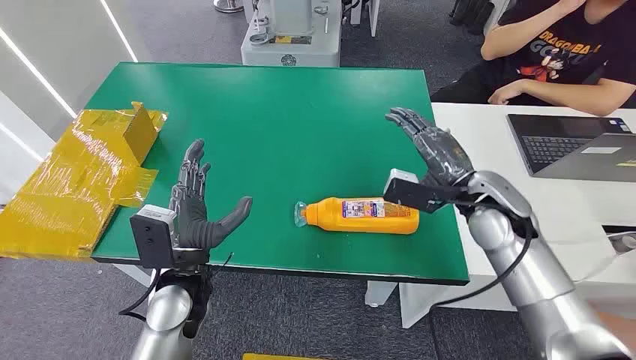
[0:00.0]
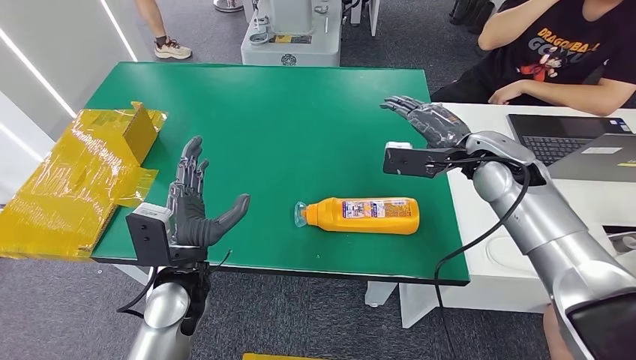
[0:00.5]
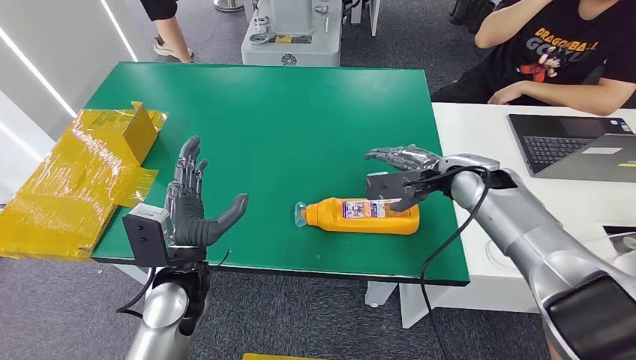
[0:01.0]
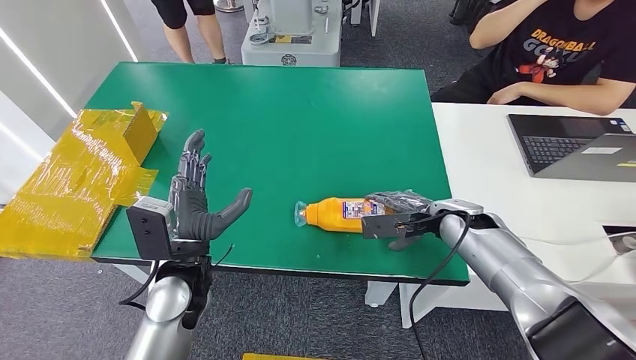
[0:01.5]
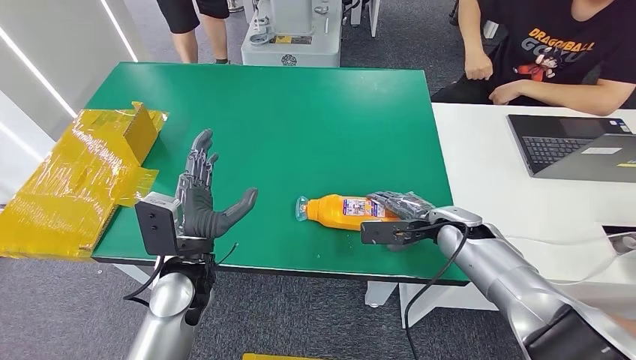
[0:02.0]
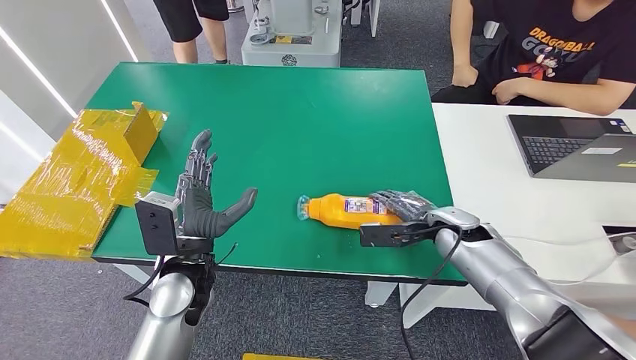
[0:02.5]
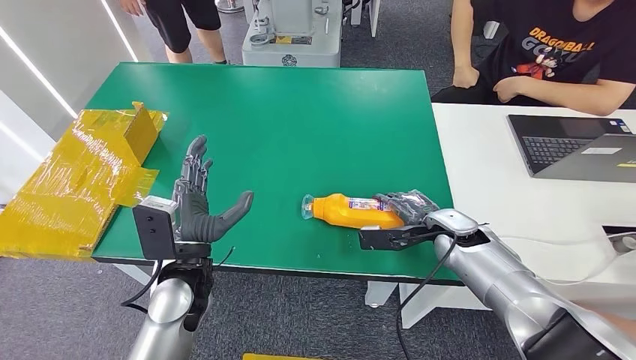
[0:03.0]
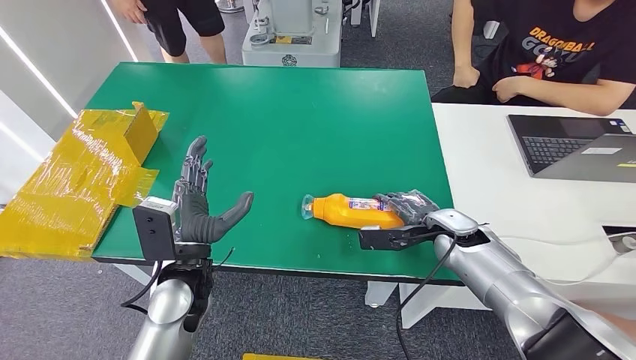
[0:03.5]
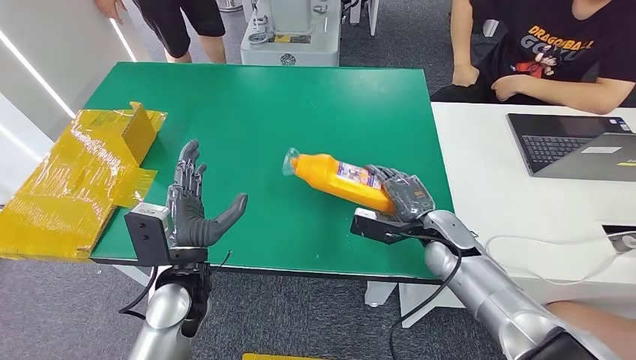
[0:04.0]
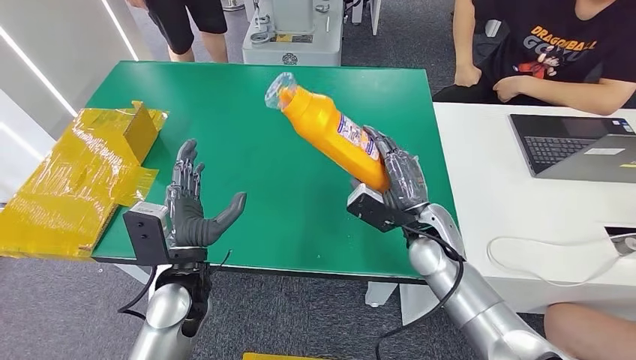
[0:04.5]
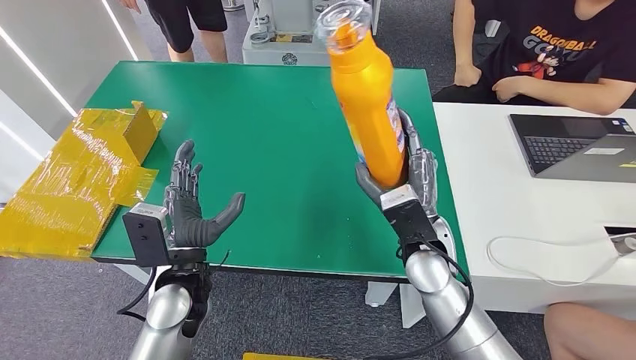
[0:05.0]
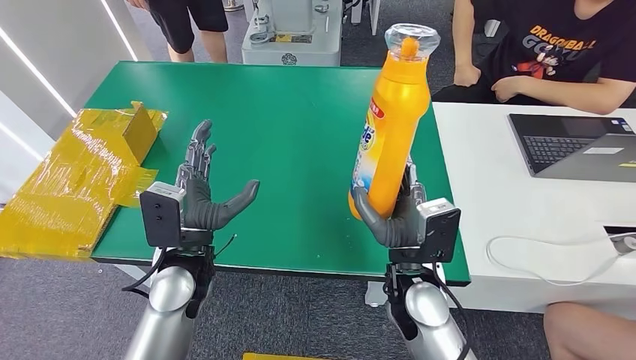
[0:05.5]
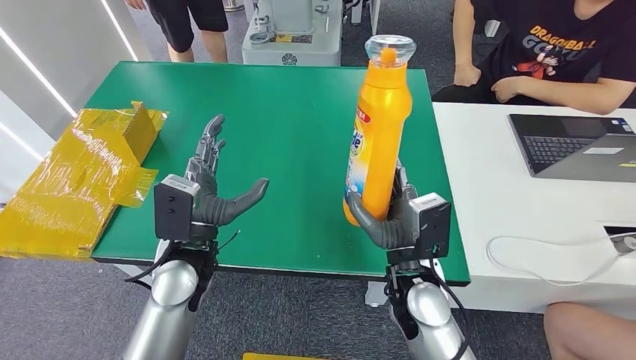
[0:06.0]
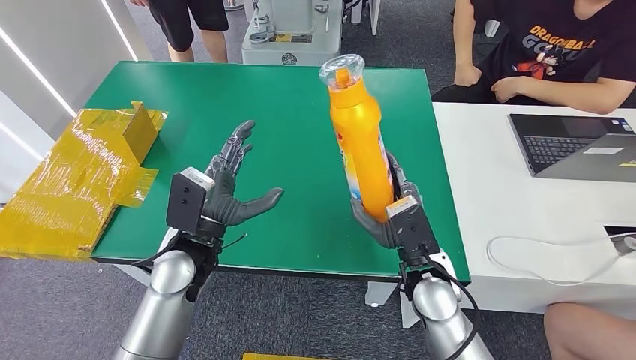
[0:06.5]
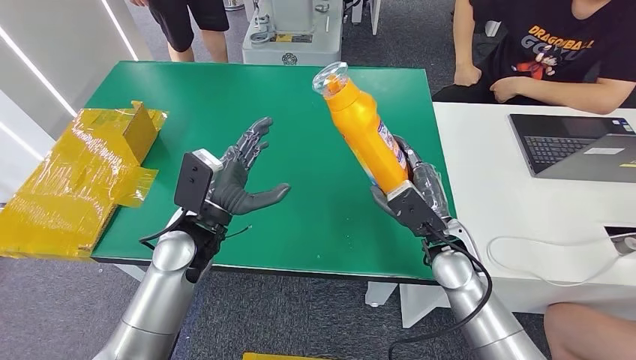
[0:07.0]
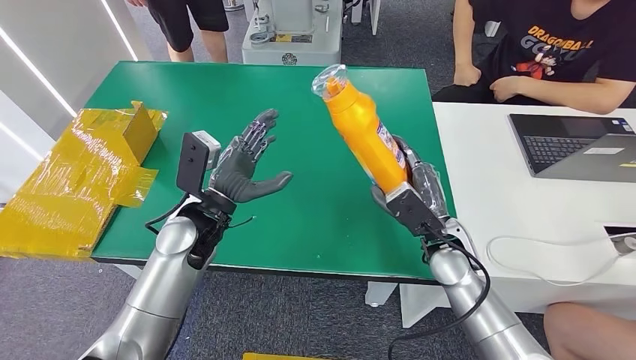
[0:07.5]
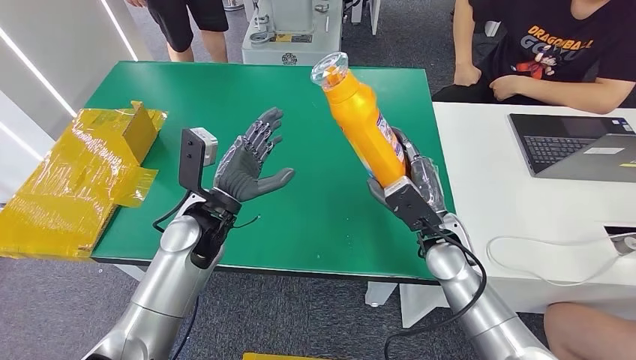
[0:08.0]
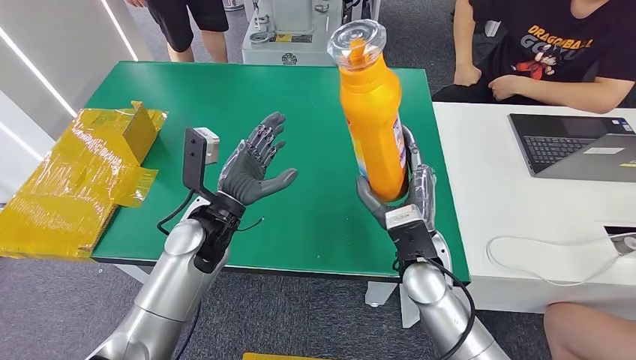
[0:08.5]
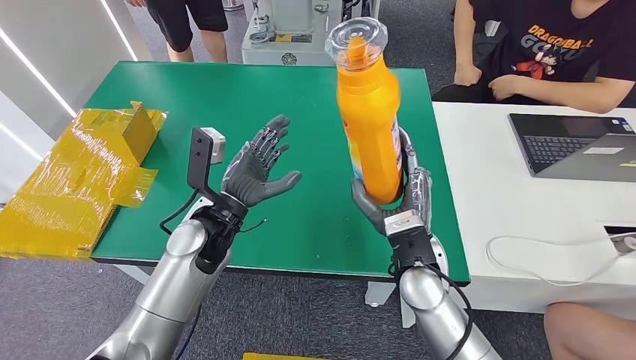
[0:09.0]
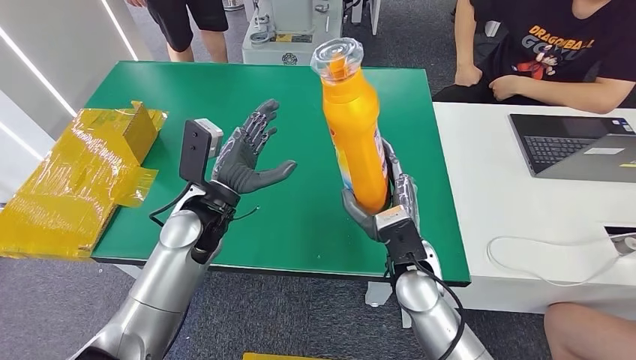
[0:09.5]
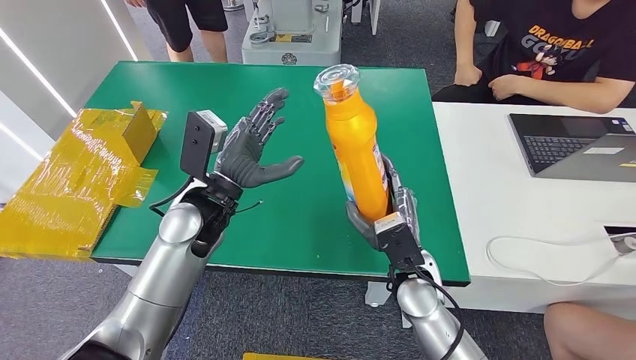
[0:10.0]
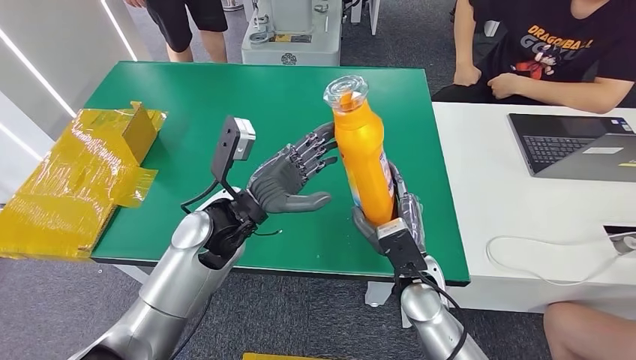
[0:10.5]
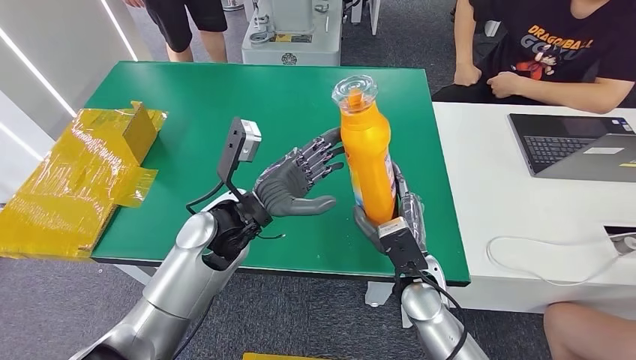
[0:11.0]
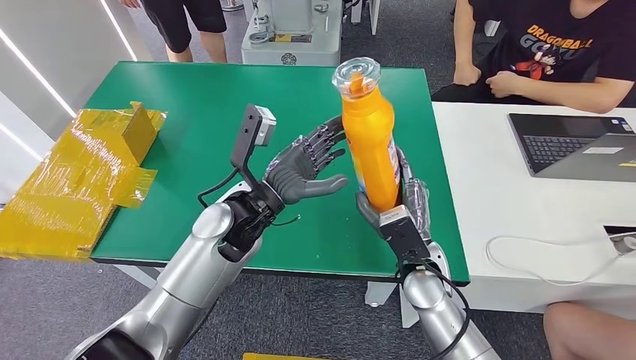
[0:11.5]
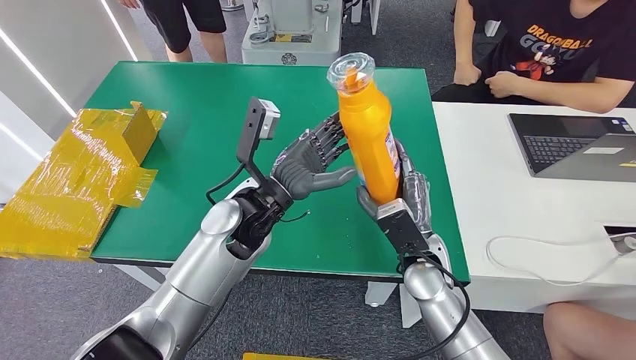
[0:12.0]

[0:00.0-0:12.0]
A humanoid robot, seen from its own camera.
Step, 0:00.0 to 0:04.0: Pick up the bottle from the table.
0:06.0 to 0:08.0: The left hand goes roughly 5 cm forward. The right hand shifts about 10 cm to the right and forward.
0:08.0 to 0:10.0: The right hand travels backward and to the left by approximately 10 cm.
0:10.0 to 0:12.0: The left hand moves to the right, approximately 5 cm.

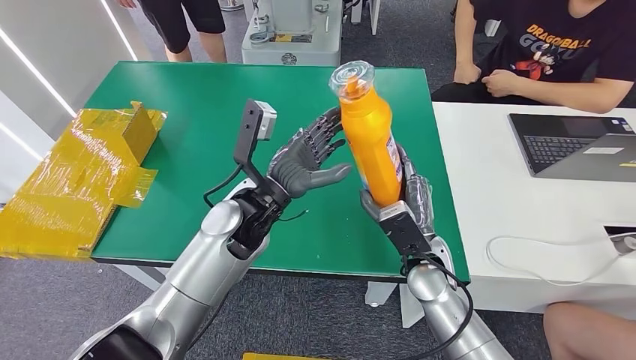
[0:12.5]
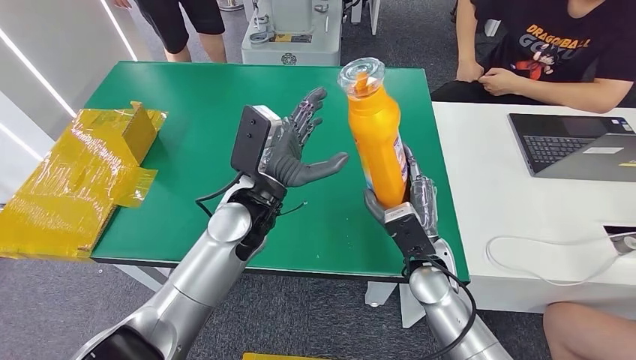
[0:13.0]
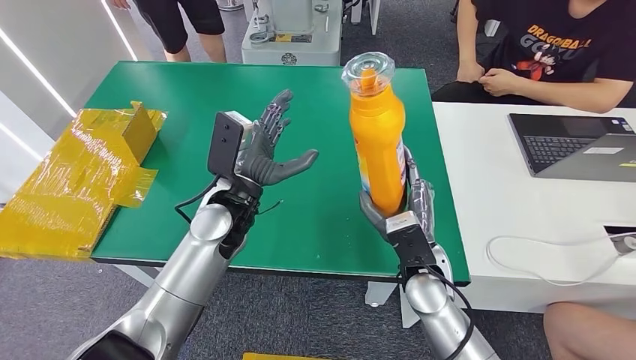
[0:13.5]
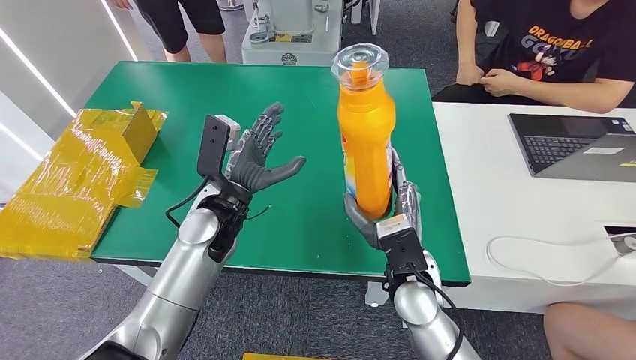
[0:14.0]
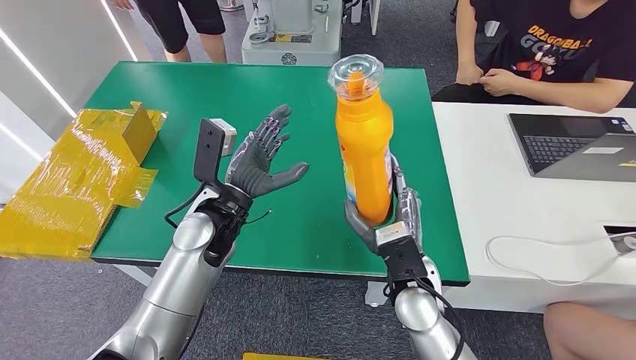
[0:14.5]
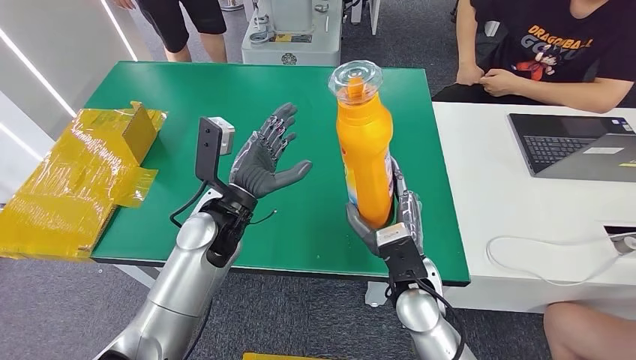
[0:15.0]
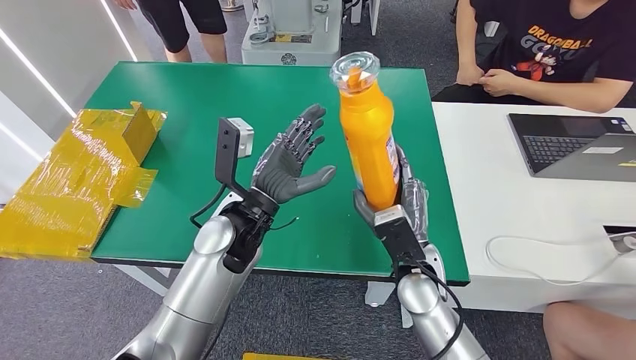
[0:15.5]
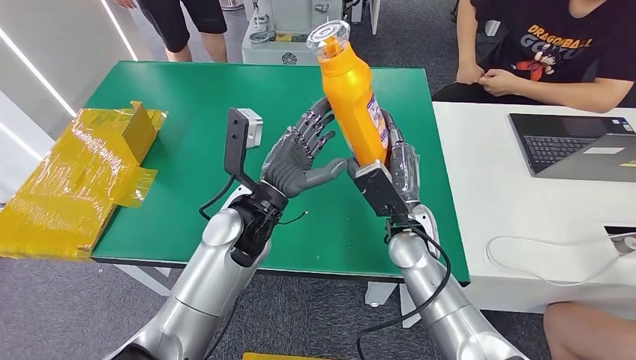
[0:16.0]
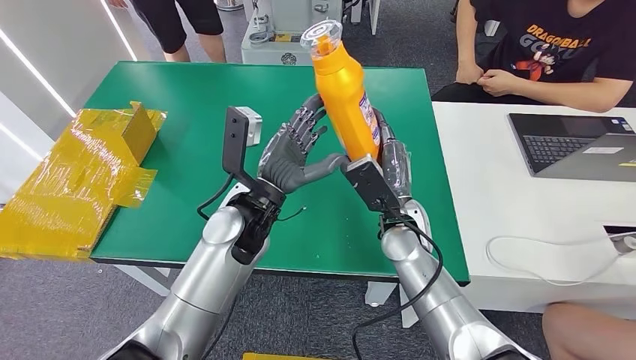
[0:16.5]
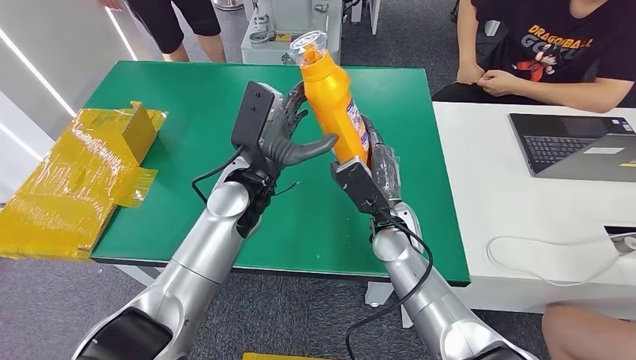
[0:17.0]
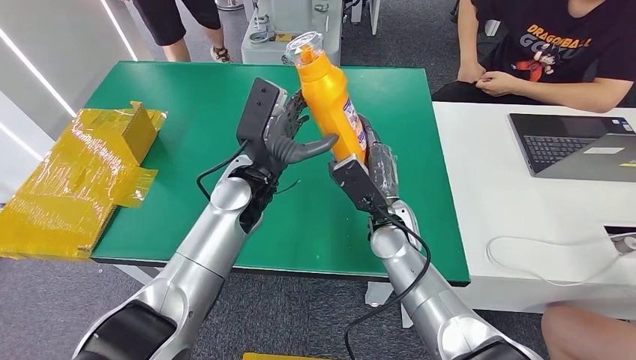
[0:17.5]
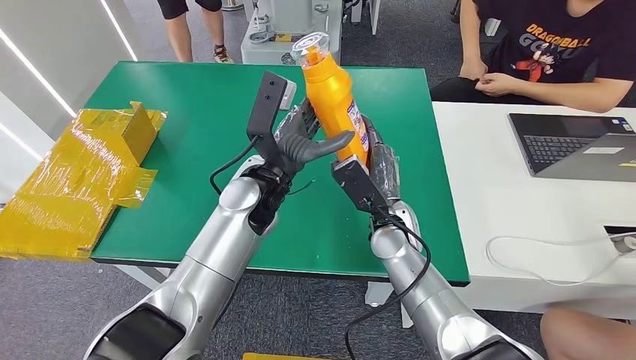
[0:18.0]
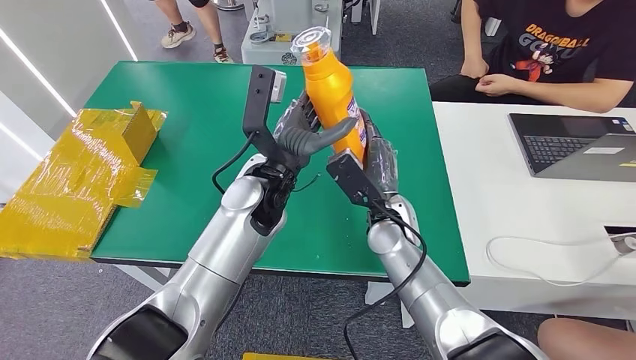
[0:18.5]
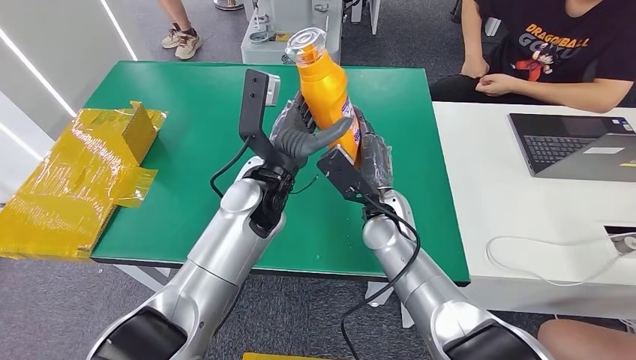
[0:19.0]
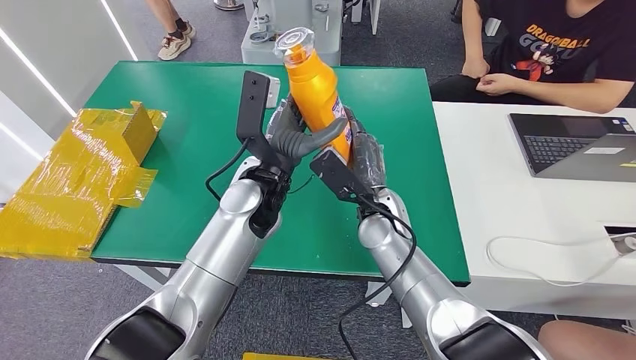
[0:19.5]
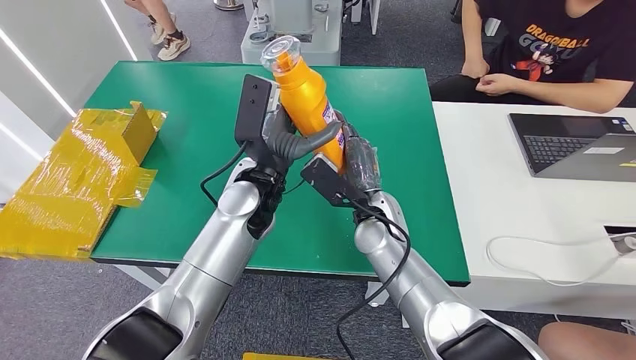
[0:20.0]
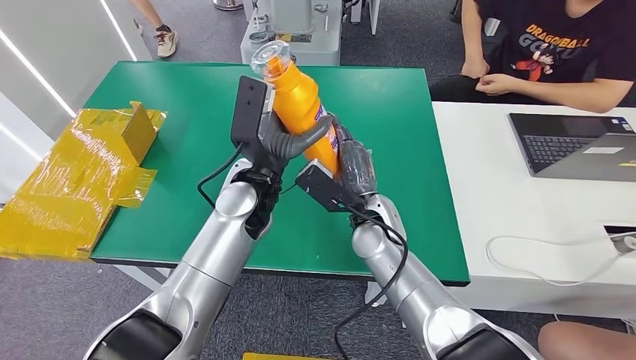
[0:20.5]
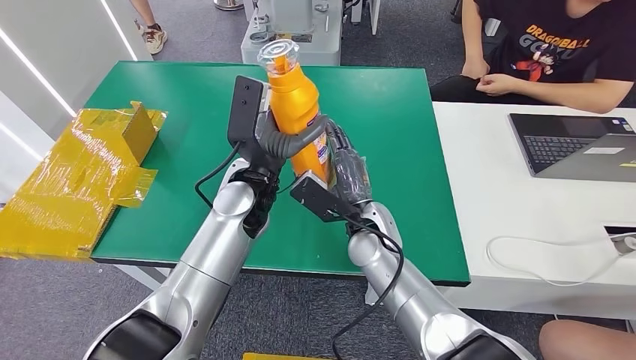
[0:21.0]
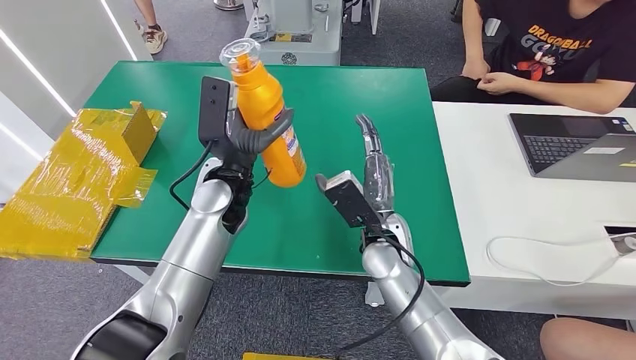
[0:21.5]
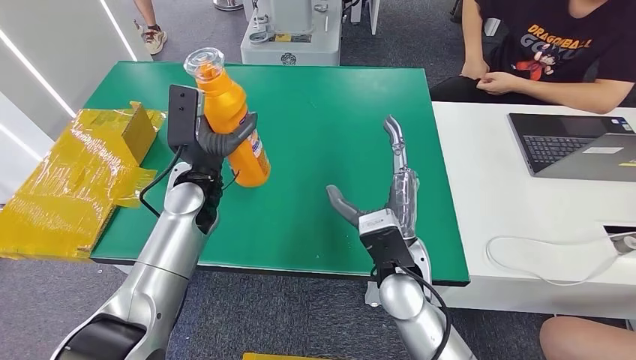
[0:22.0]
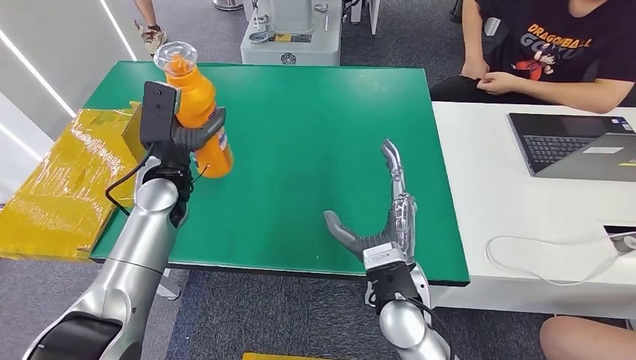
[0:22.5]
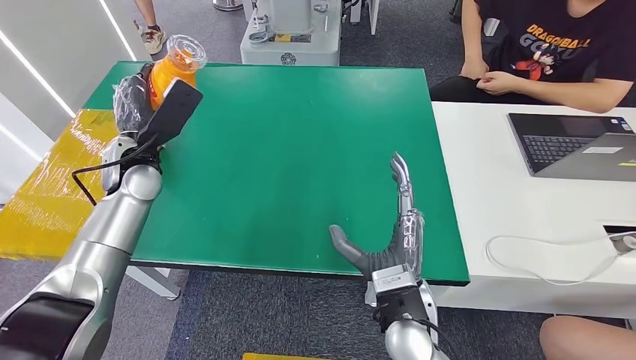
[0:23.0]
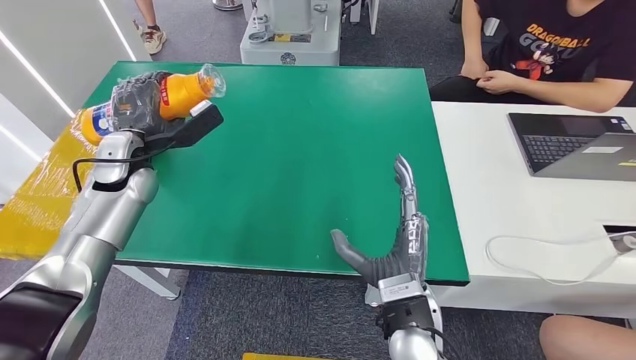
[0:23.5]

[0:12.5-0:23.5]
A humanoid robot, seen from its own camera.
0:12.5 to 0:14.5: The right hand ends up about 5 cm from where it was. The left hand changes place by about 5 cm.
0:14.5 to 0:16.0: The right hand moves forward, approximately 10 cm. The left hand moves to the right, approximately 5 cm.
0:18.0 to 0:20.0: There are only small adjustments of the hands.
